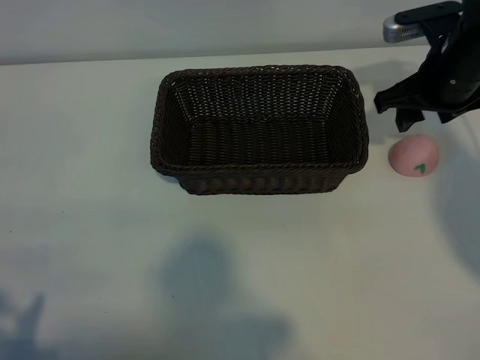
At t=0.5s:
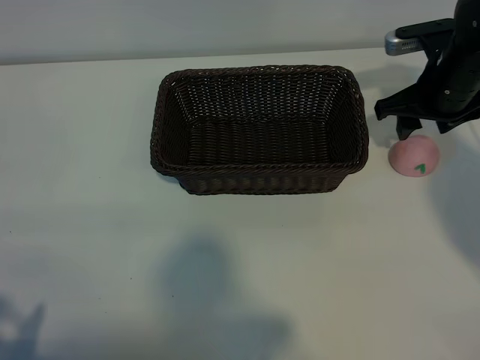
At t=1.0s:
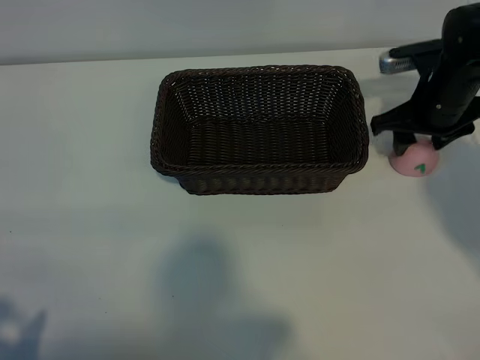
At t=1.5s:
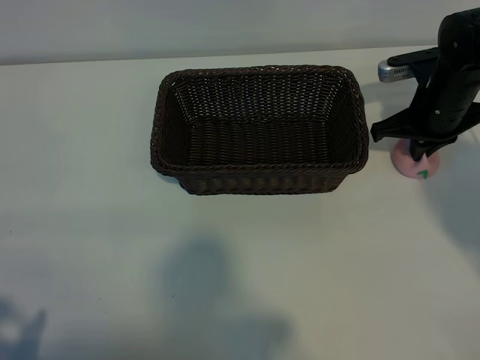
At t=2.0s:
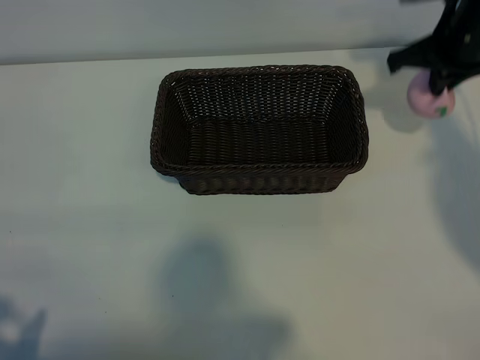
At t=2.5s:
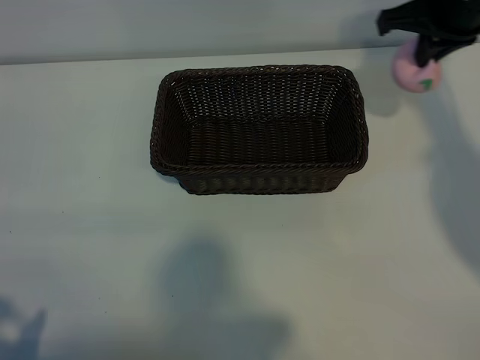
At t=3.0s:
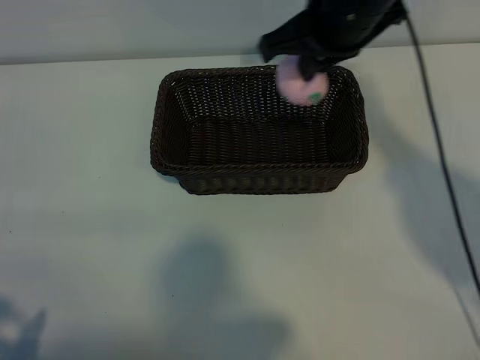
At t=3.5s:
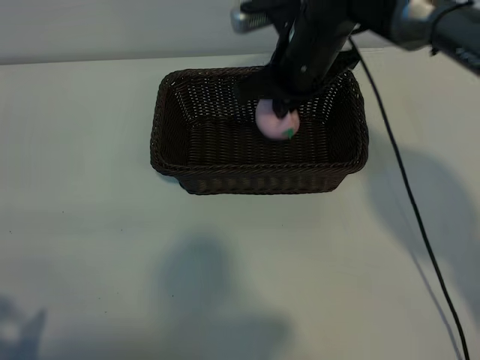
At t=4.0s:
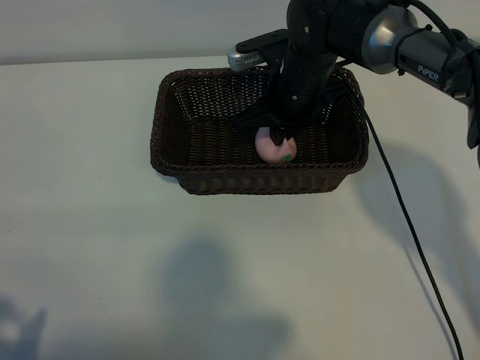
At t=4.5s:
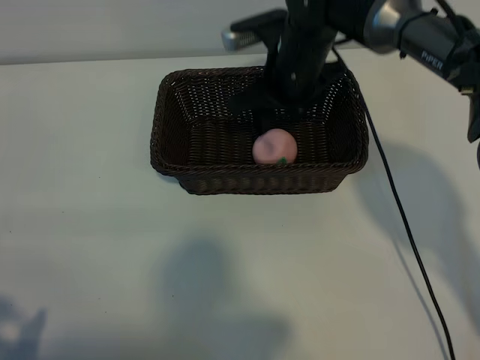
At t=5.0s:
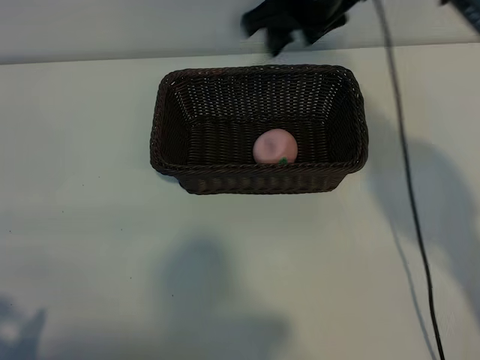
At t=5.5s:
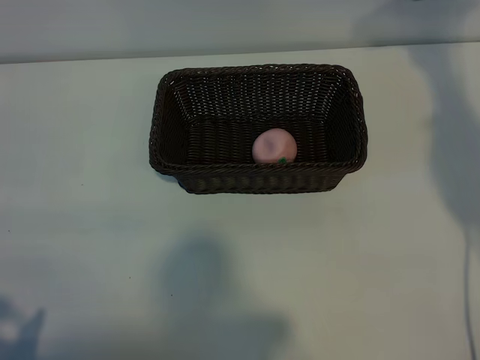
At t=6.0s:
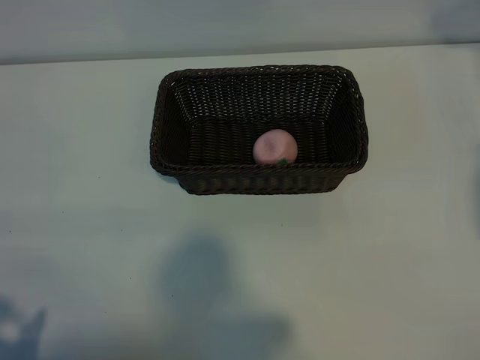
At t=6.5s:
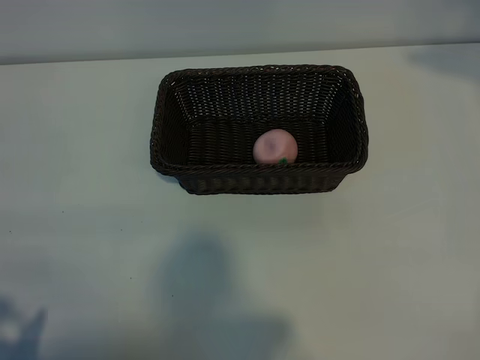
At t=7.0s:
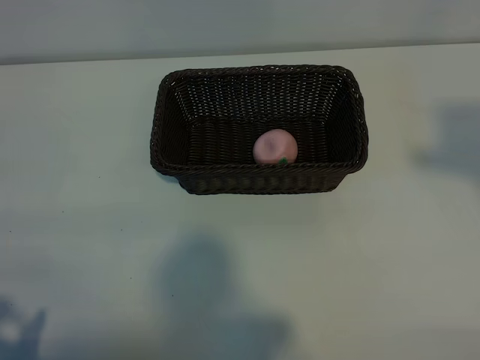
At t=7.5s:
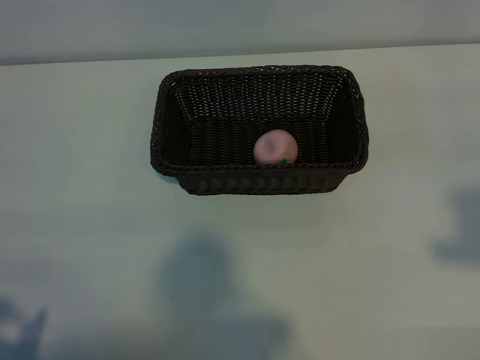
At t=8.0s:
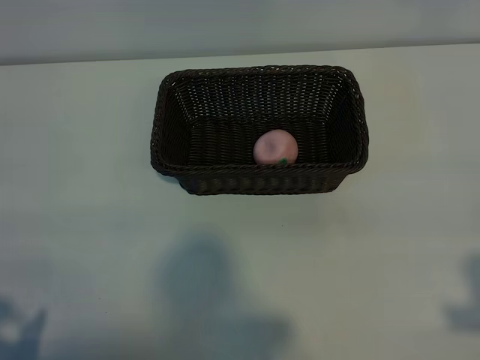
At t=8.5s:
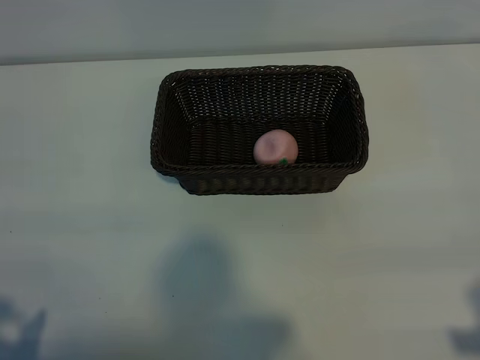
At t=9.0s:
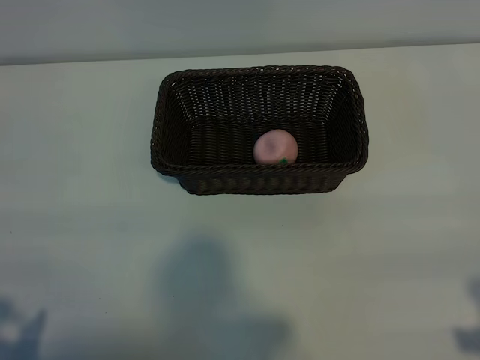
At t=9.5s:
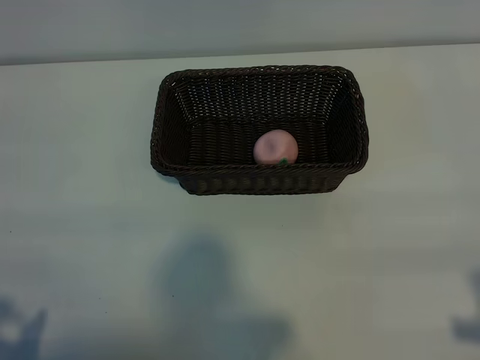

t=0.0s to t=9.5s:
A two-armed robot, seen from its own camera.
Task of the whole recording: pick up the peach and put it into the basket.
Step, t=1.5s to t=4.5s: Place the peach in the basket with right gripper.

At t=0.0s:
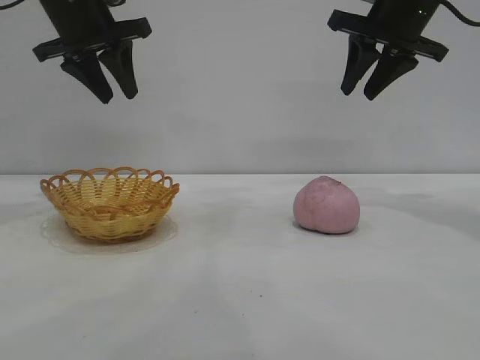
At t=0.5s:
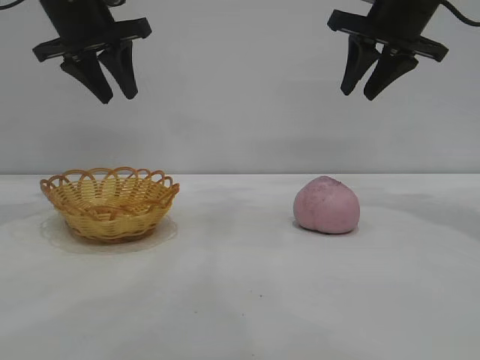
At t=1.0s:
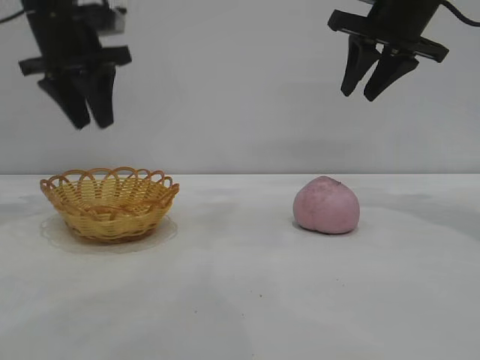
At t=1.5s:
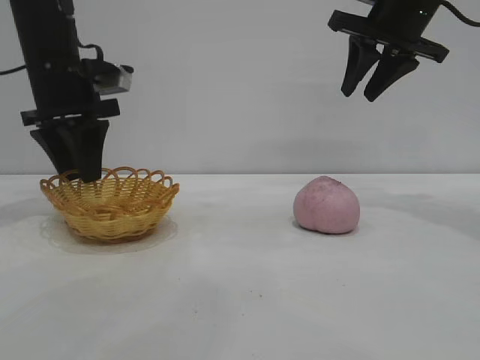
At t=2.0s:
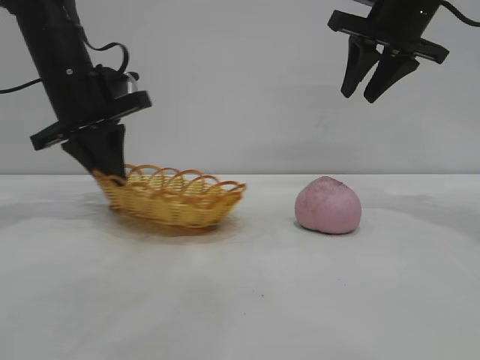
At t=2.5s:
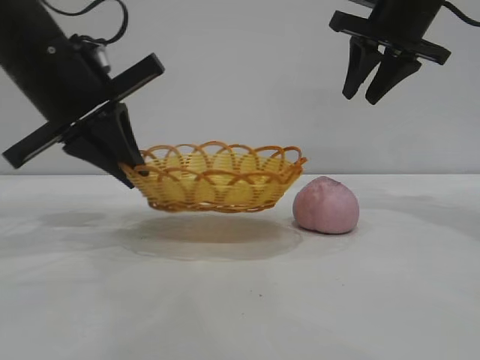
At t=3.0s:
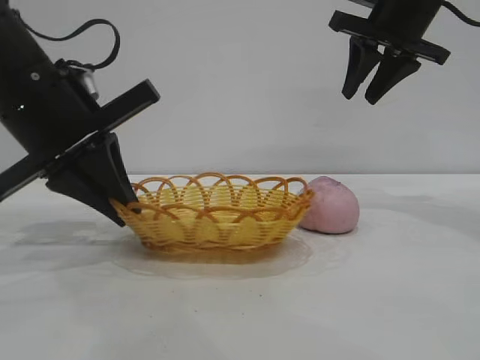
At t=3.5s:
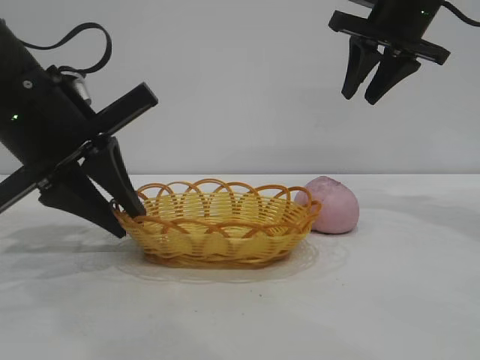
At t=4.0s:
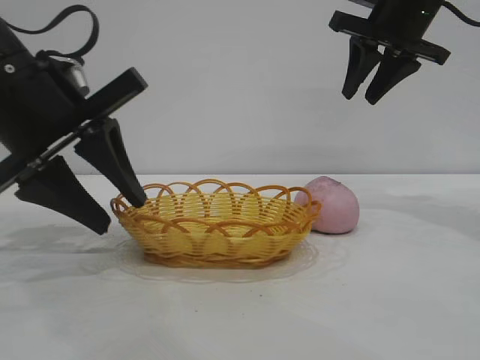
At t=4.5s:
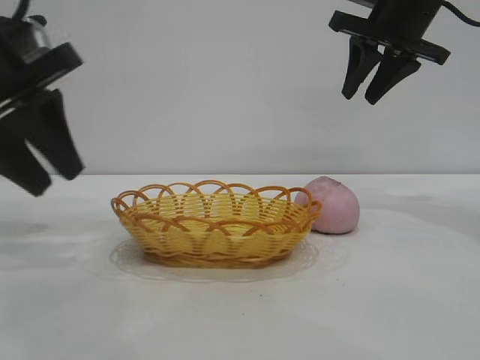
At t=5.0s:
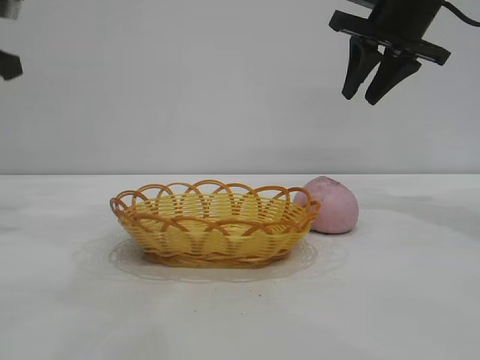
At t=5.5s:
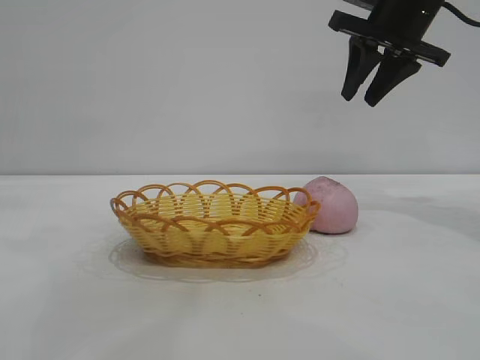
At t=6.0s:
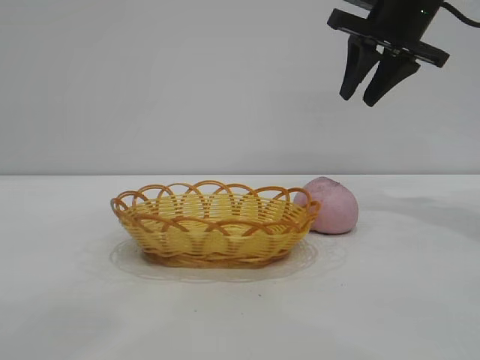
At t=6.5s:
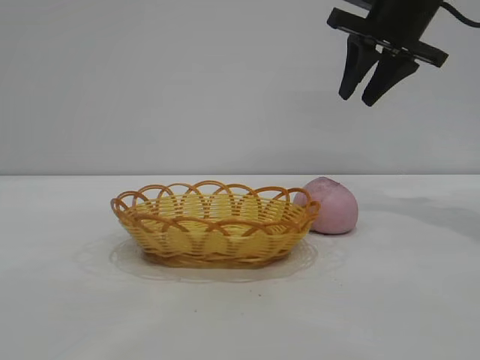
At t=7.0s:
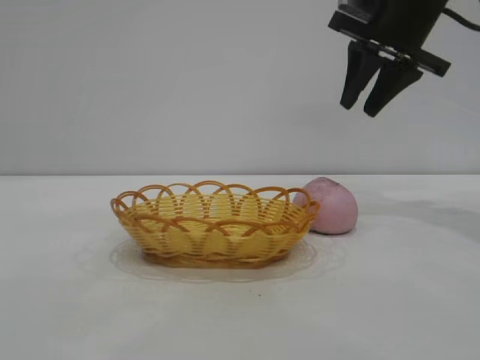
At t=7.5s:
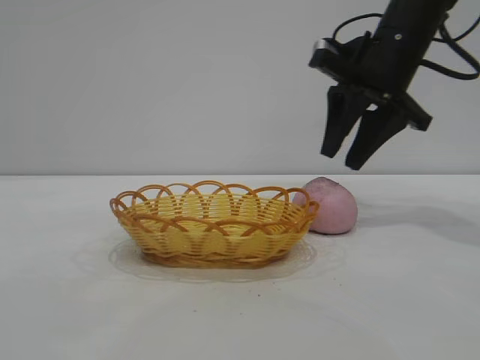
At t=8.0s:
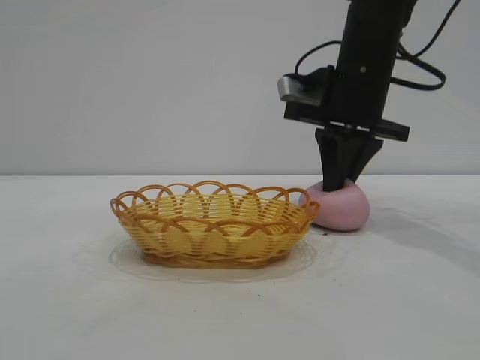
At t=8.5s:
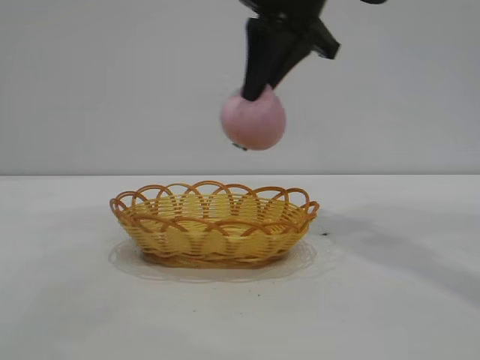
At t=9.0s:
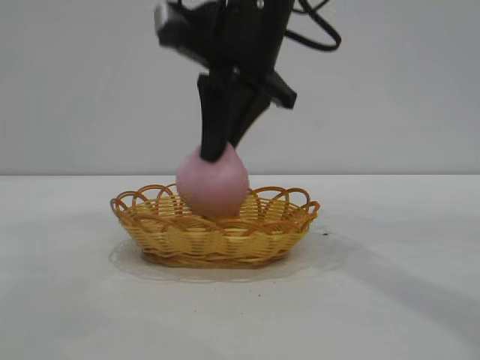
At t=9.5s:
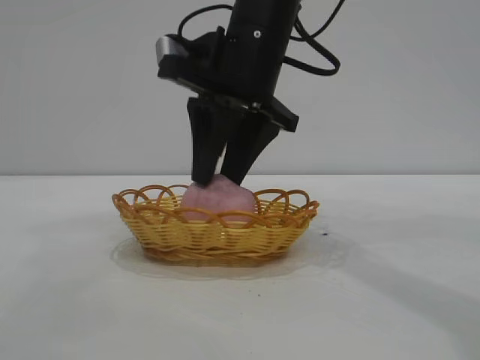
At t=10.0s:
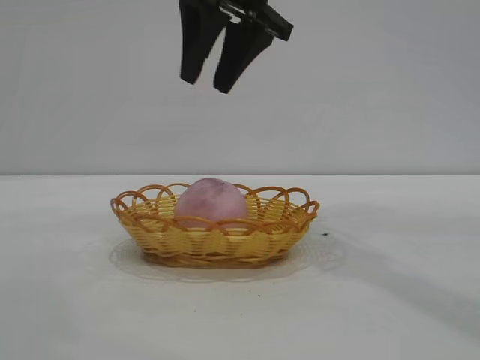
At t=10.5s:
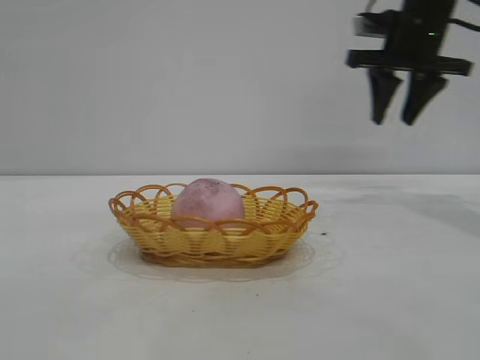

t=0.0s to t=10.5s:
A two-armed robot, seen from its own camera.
Task of the whole recording: pick up the peach and put it into the basket.
Step, t=0.0s to t=4.0s: Move the basket to the center of view.
Step, t=4.5s to t=8.0s: Pick up the peach.
Step, t=8.5s to t=9.5s: place the peach into the basket.
